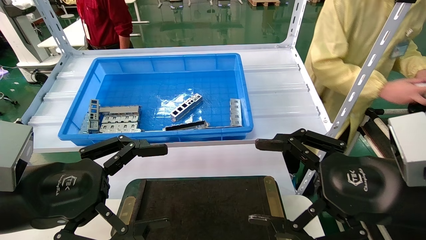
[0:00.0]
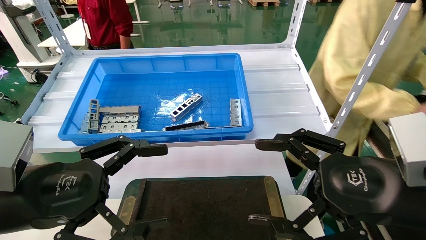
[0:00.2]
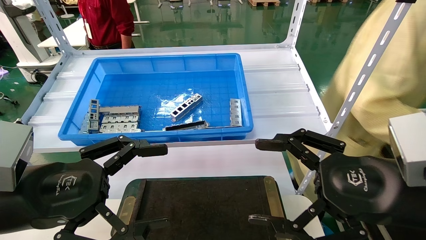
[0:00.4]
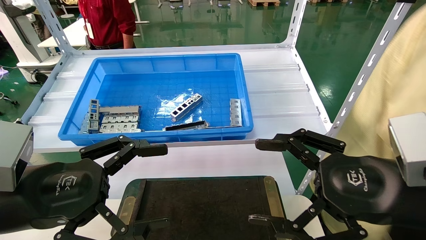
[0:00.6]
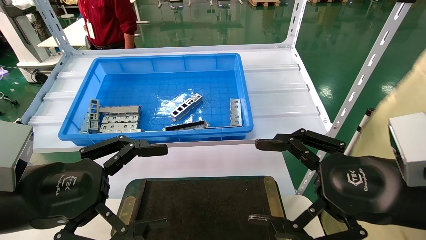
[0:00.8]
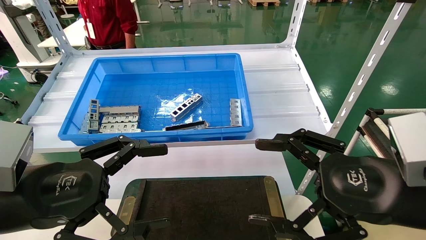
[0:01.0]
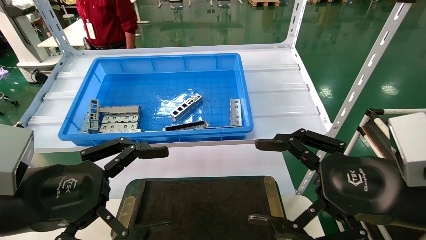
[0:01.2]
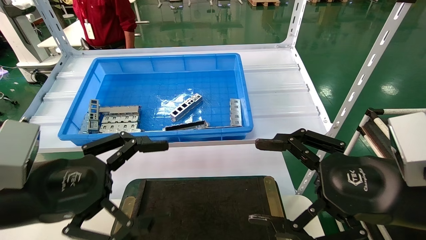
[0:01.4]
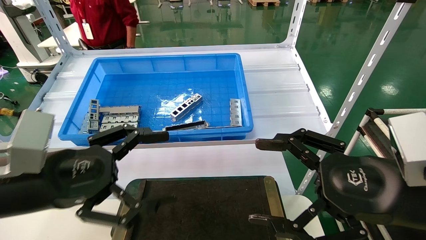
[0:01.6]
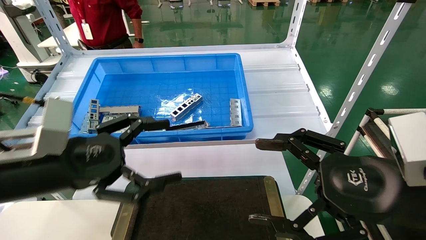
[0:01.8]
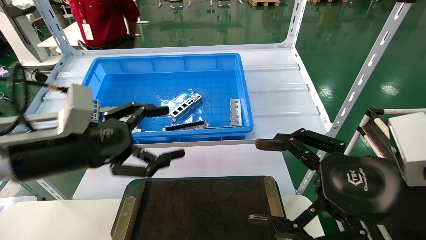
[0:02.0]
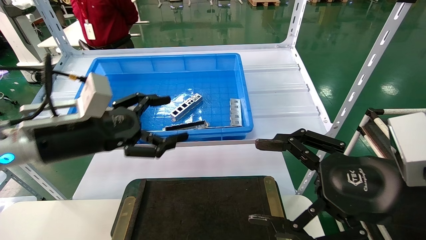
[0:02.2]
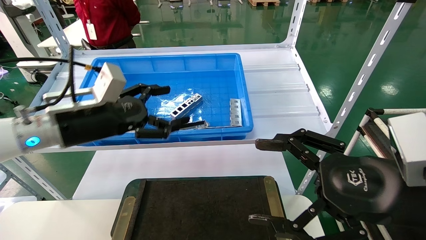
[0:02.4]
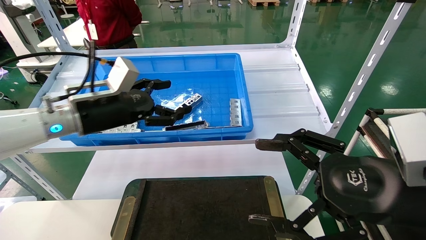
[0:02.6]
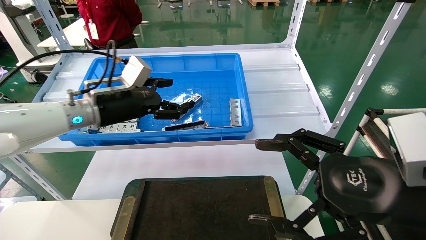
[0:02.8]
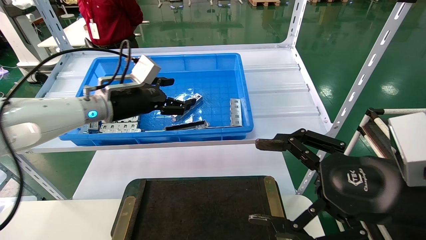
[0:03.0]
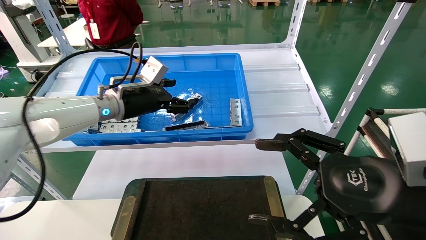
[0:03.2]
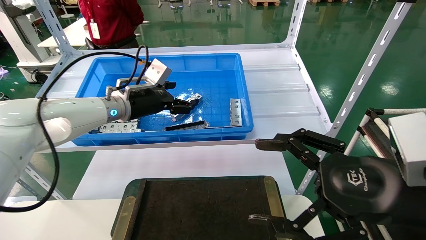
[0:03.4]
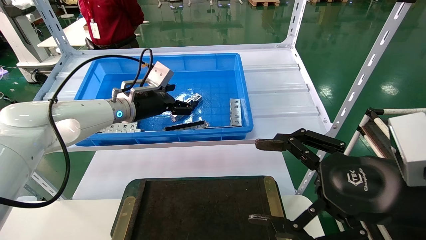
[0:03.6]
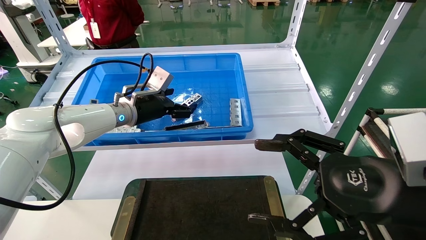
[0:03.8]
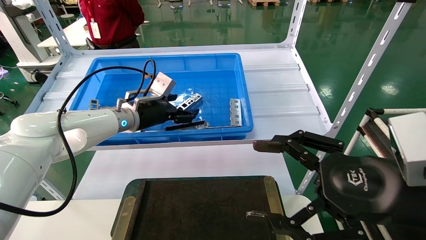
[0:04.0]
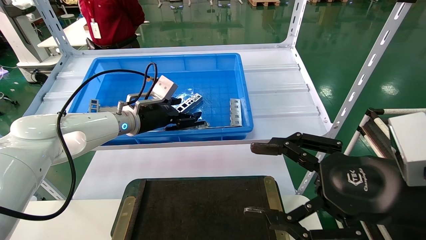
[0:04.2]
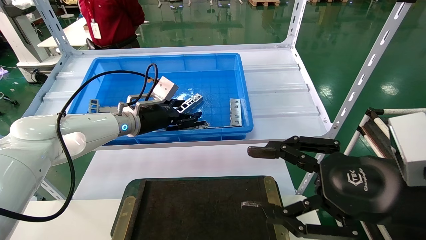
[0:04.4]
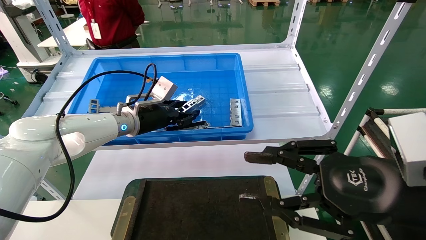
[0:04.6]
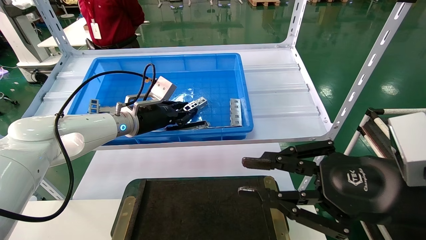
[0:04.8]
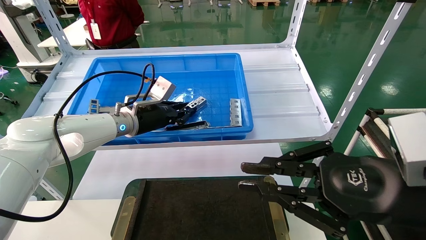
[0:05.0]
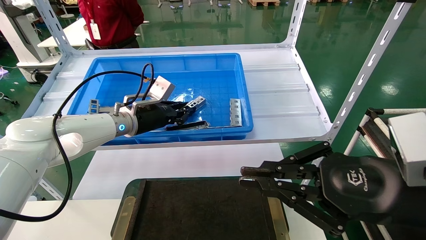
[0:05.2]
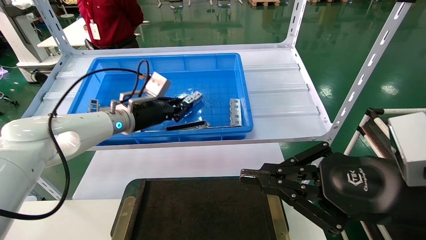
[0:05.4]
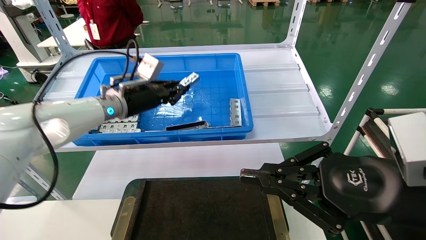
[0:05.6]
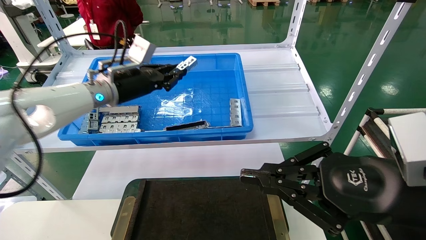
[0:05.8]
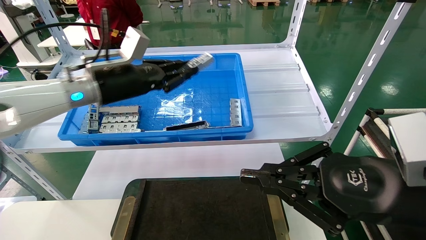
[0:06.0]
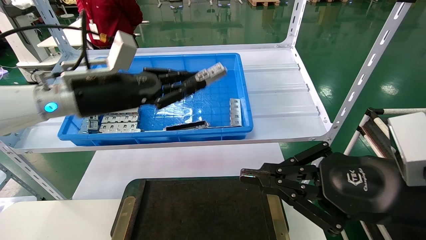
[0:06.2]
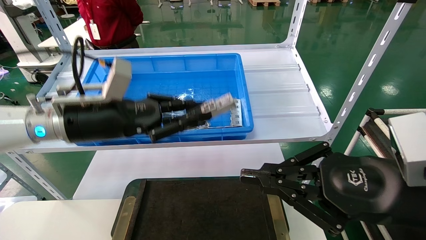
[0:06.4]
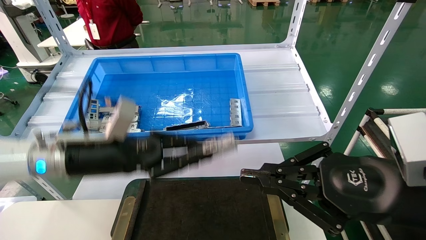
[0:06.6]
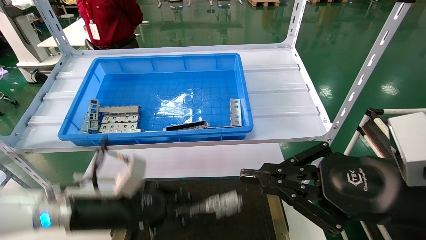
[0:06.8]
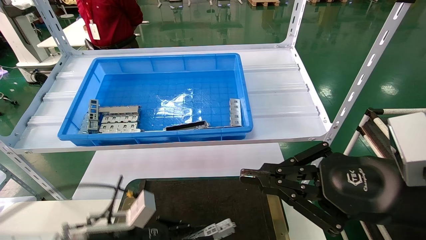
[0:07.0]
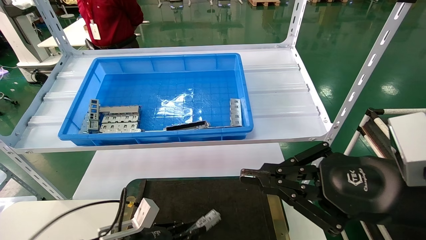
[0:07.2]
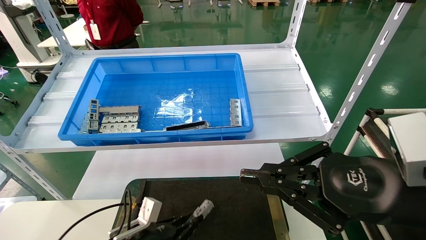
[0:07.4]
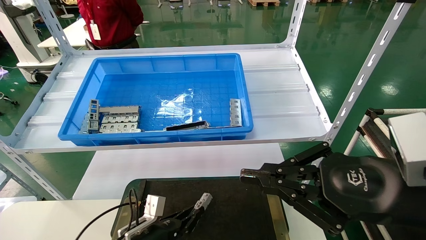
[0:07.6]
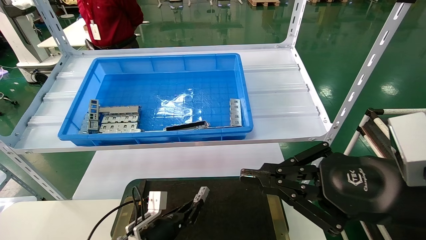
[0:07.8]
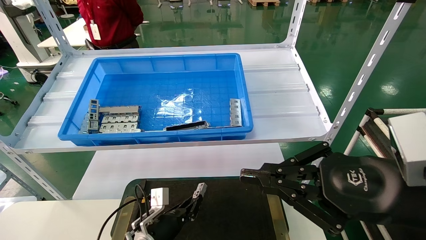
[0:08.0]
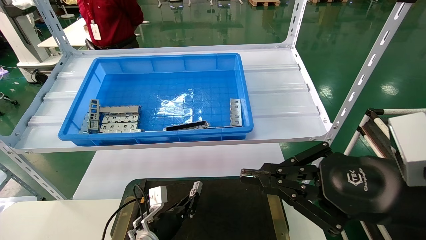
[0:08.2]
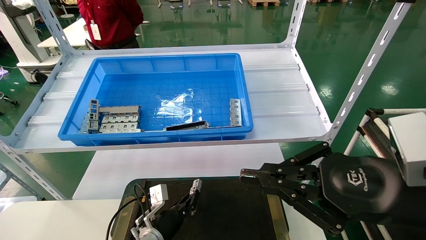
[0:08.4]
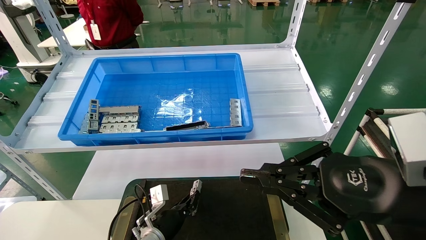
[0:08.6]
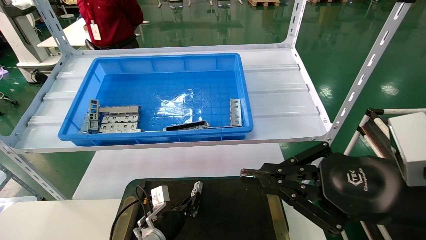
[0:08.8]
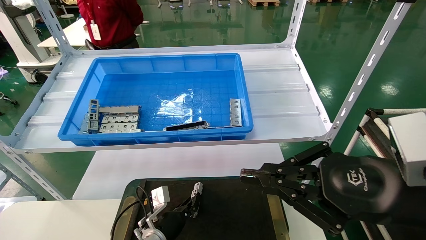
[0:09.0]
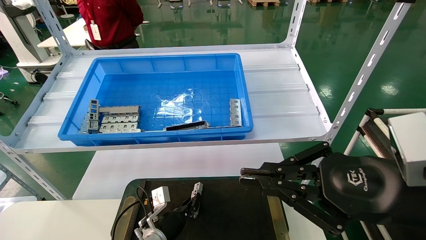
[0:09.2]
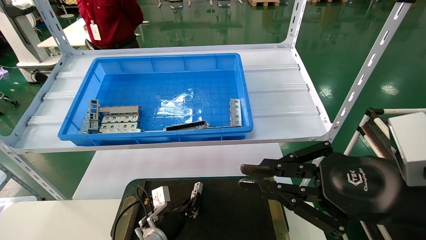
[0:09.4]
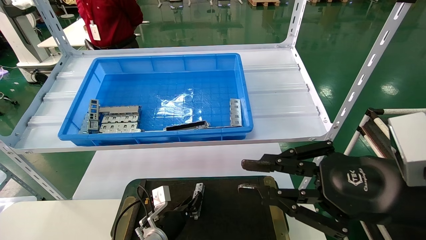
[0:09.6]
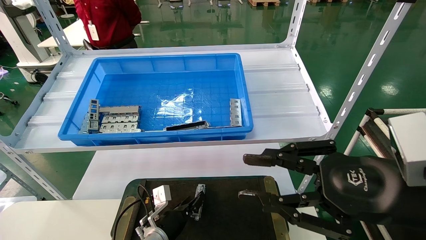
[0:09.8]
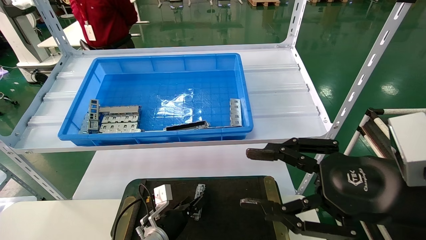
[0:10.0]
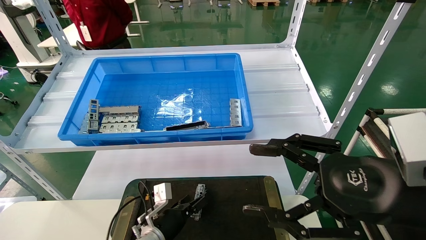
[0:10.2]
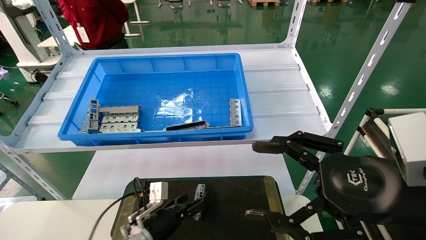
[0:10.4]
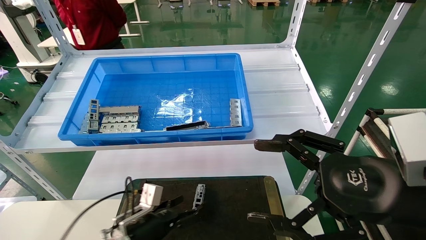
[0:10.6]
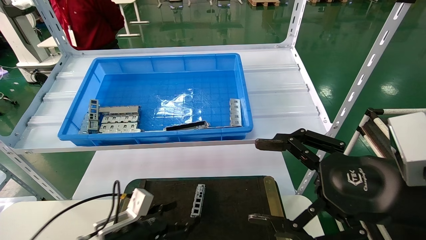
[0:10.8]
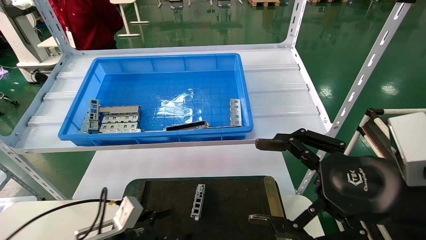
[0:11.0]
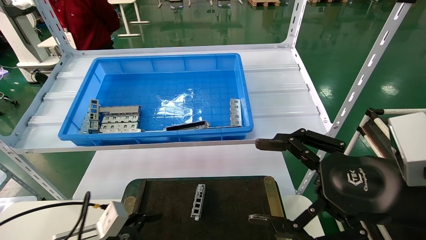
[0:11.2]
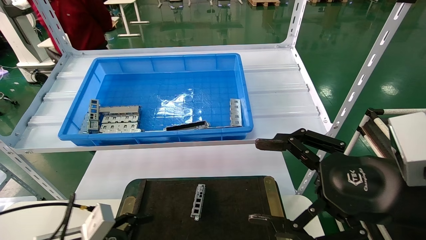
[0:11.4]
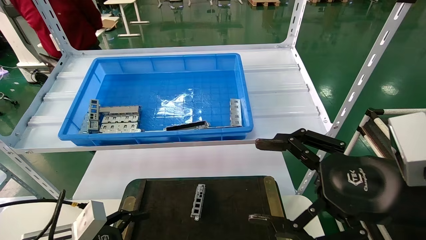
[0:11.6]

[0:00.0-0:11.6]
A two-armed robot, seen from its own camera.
Task of the whole recording: Grasp the part with one hand and place it on the black container.
Step, 0:01.6 to 0:05.6: Pick up the front USB bracket from the feeding area.
Step, 0:05.8 to 0:09.8: Place the front USB bracket into the box.
0:00.0 to 0:01.4: The two grippers keep their place.
0:01.4 to 0:02.8: The left gripper goes about 20 cm forward.
0:02.8 to 0:04.4: The left gripper heads forward and downward, covering roughly 10 cm.
0:04.4 to 0:05.8: The left gripper is displaced upward by about 10 cm, and closes up. The right gripper closes.
0:05.8 to 0:07.2: The left gripper is displaced downward and backward by about 35 cm.
0:07.2 to 0:08.8: The left gripper heads forward, downward and to the right, covering about 15 cm.
0:08.8 to 0:10.2: The right gripper opens up, while the left gripper opens up.
0:10.2 to 0:11.6: The left gripper moves to the left, backward and upward, about 25 cm, and opens up, while the right gripper opens its fingers.

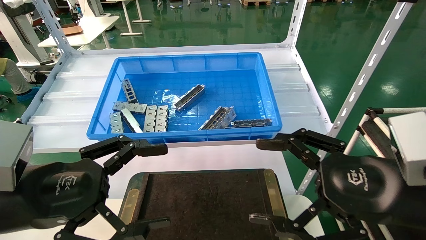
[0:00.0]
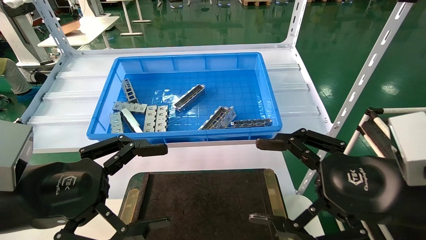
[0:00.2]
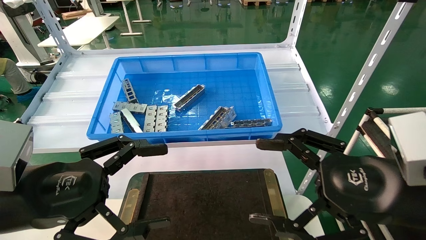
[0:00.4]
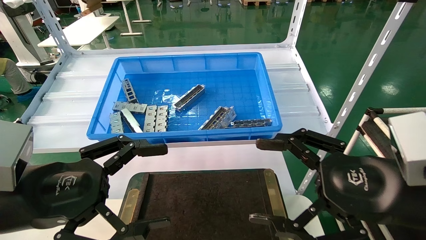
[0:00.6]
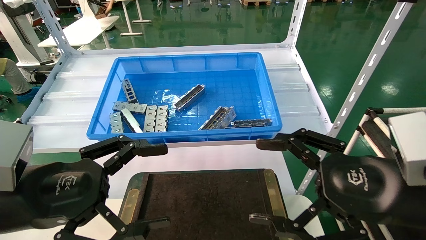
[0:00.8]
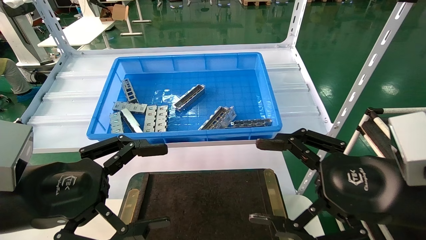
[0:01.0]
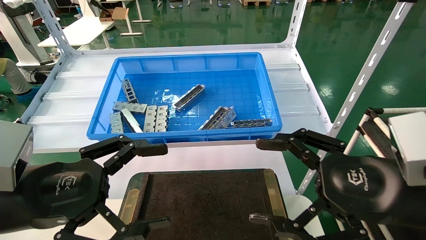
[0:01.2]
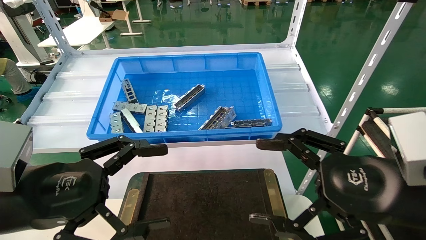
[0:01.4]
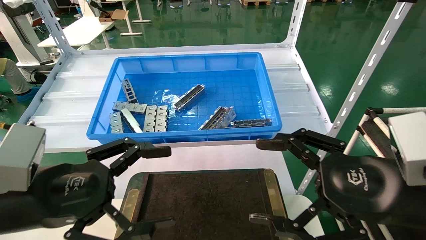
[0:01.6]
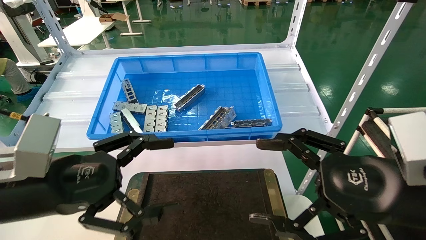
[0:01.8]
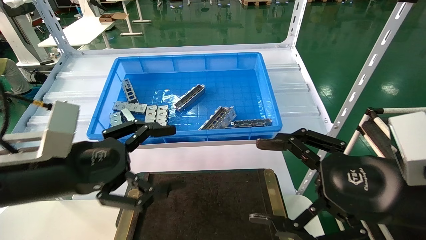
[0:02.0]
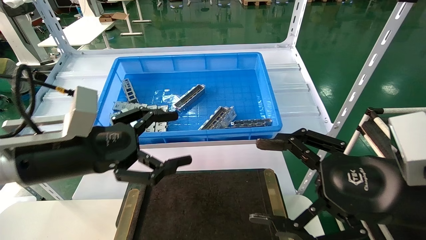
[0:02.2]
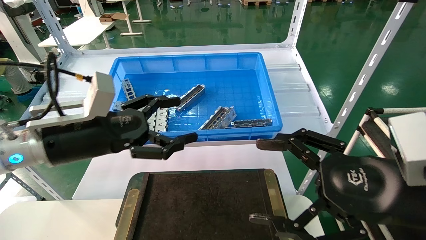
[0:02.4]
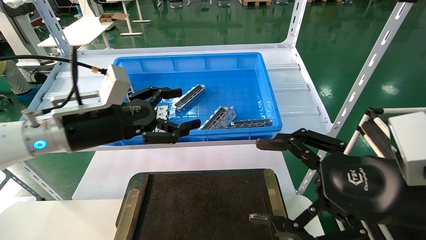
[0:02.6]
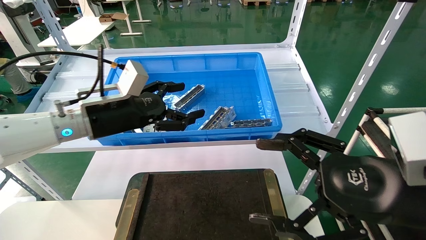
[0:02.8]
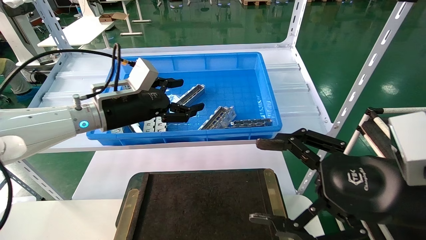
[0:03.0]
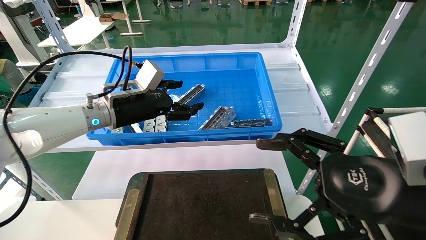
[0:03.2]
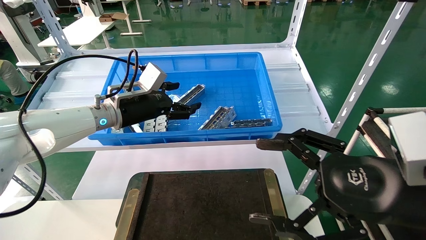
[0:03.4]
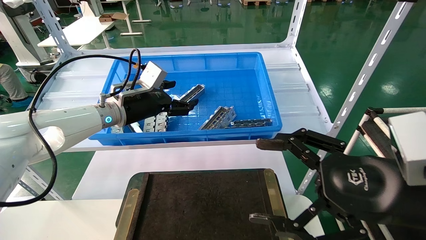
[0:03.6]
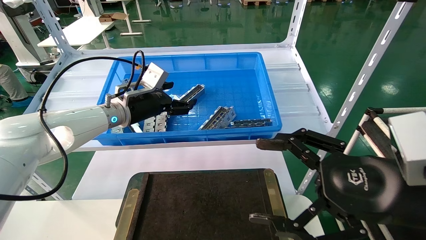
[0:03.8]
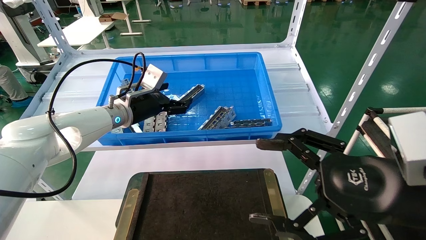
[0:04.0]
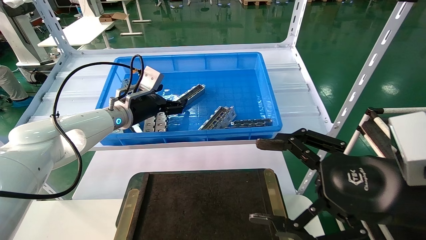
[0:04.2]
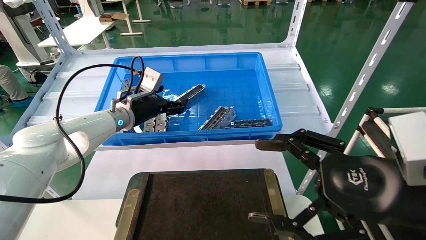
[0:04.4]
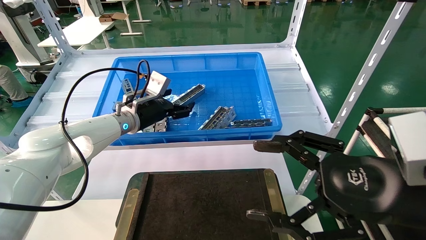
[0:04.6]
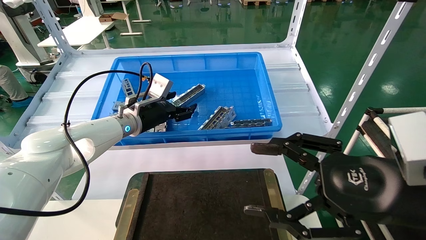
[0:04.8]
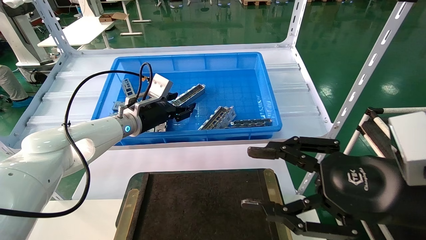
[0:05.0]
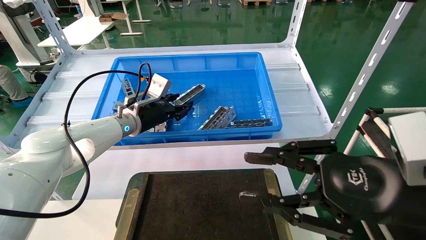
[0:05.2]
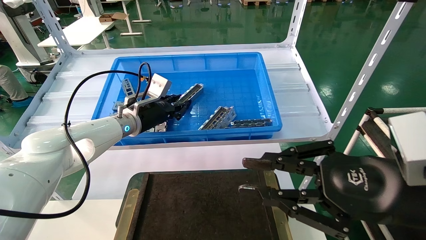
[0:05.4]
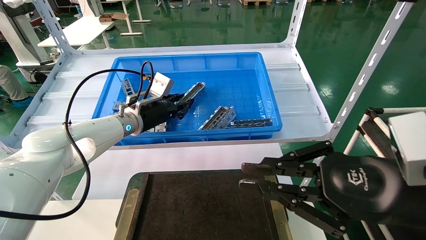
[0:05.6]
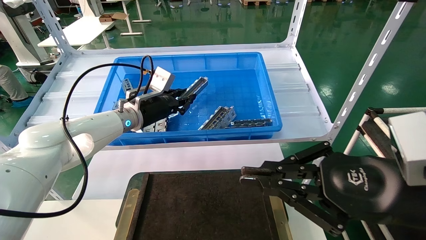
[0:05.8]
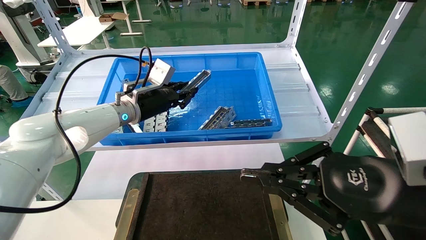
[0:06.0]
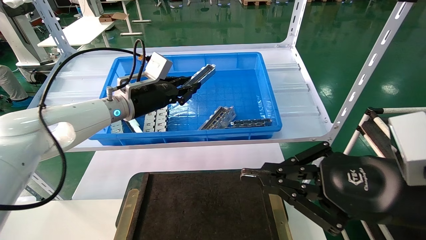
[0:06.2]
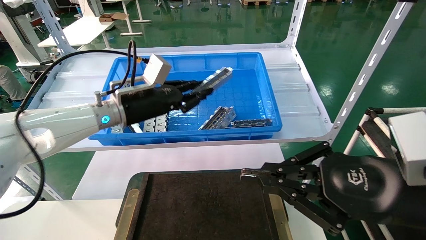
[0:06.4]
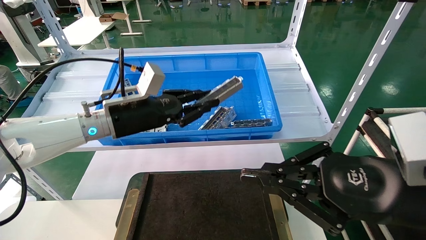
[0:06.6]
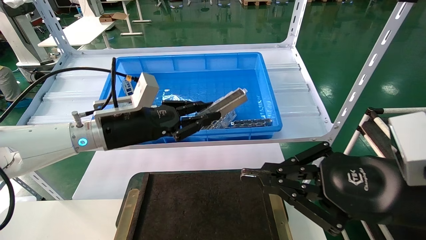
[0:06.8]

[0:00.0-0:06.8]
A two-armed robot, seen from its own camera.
Task of the whole recording: Grasp the part with one hand and place it on the black container.
Step, 0:02.0 to 0:06.2: Pick up the front USB bracket from the feeding area.
0:00.0 to 0:01.4: Both grippers stay about where they are.
0:01.4 to 0:02.8: The left gripper heads forward, covering roughly 20 cm.
0:02.8 to 0:04.0: The left gripper heads forward, covering roughly 10 cm.
0:04.0 to 0:05.4: The right gripper closes up, while the left gripper closes.
0:05.4 to 0:06.8: The left gripper travels backward by approximately 10 cm. Meanwhile the right gripper closes up.
